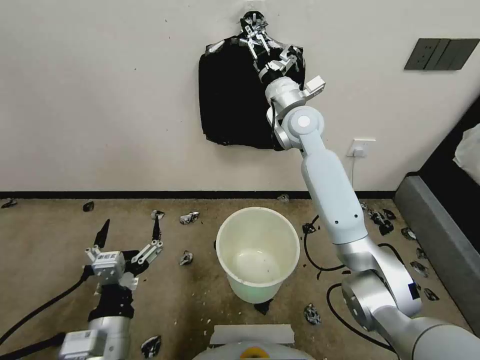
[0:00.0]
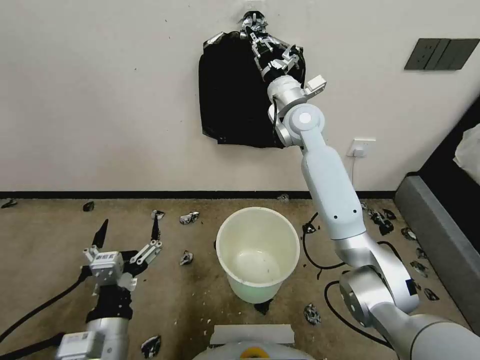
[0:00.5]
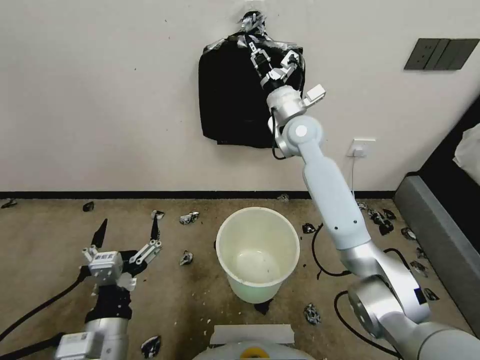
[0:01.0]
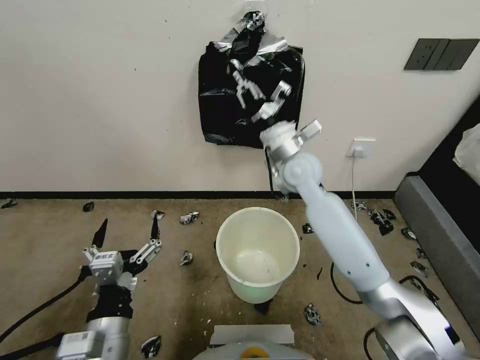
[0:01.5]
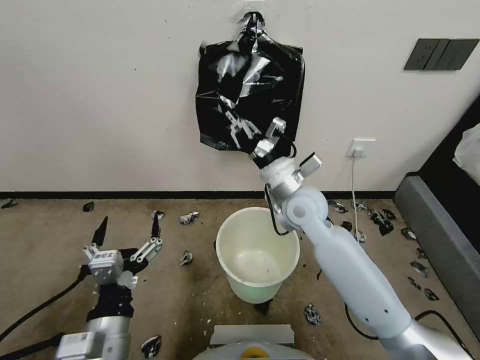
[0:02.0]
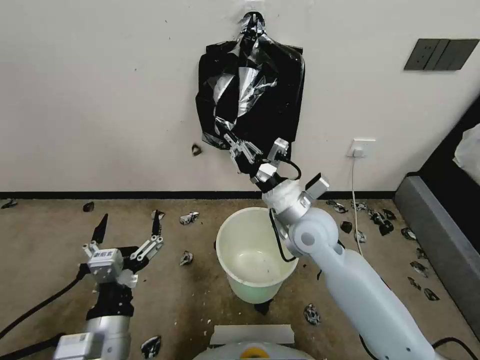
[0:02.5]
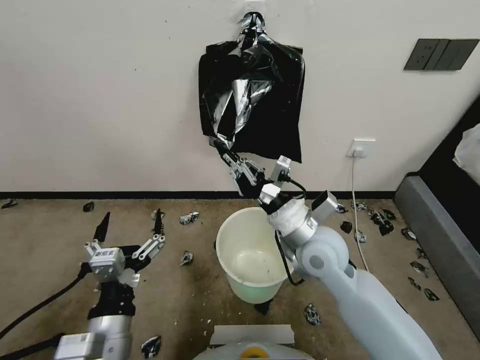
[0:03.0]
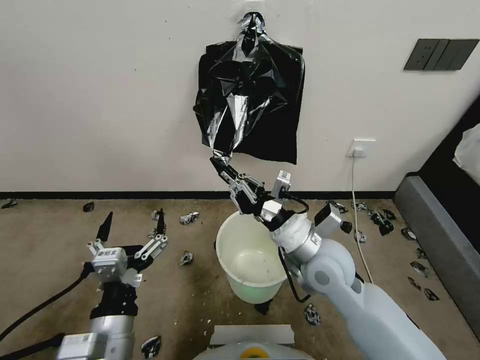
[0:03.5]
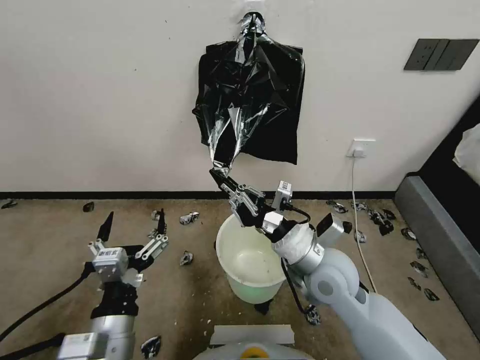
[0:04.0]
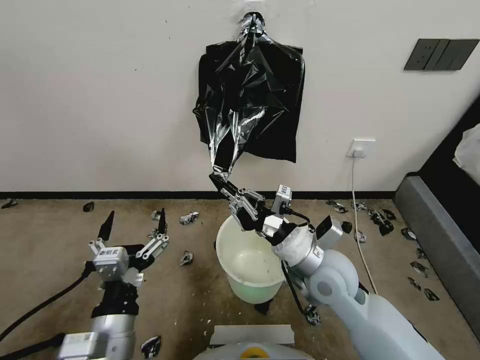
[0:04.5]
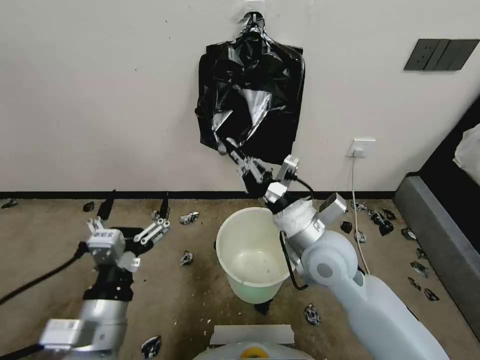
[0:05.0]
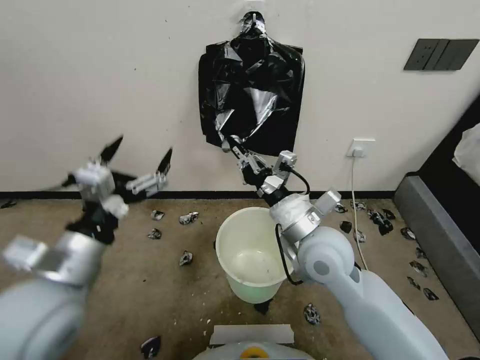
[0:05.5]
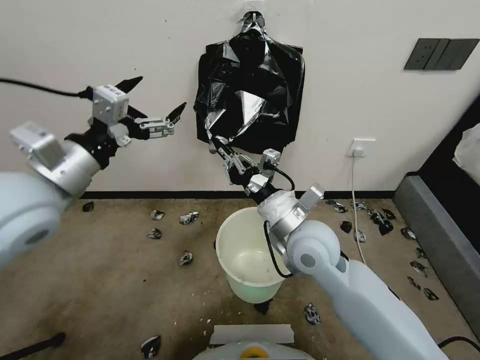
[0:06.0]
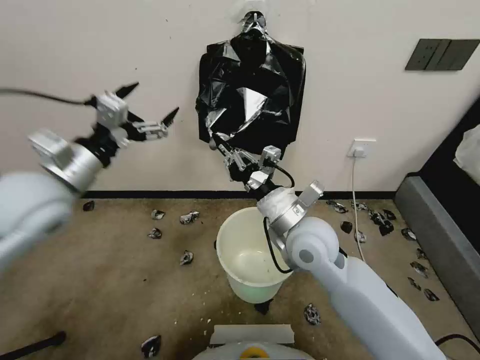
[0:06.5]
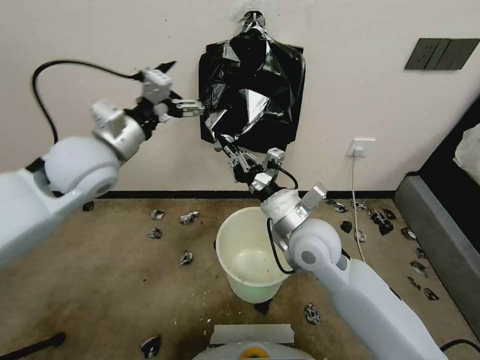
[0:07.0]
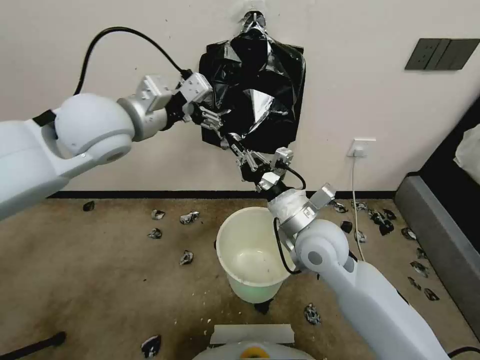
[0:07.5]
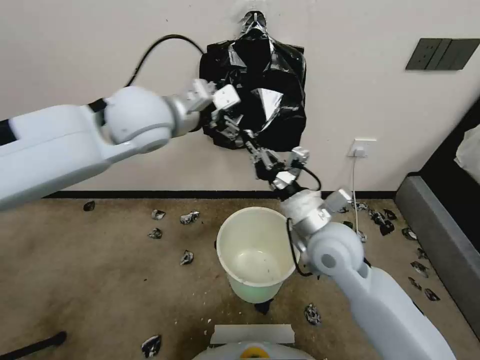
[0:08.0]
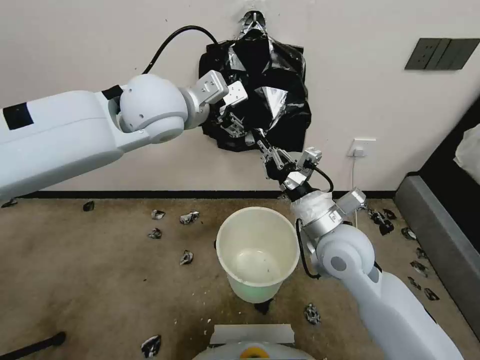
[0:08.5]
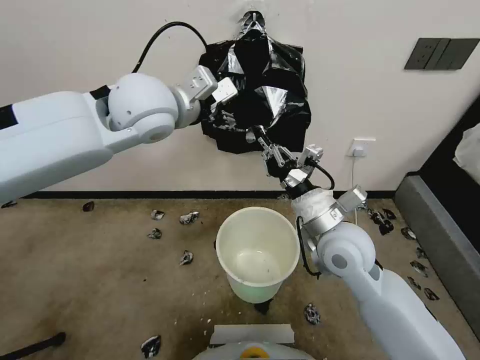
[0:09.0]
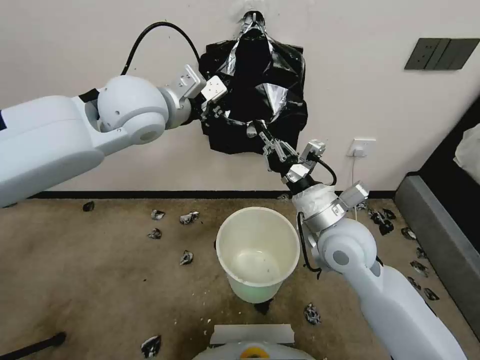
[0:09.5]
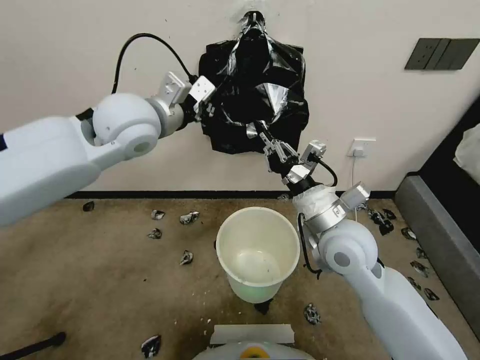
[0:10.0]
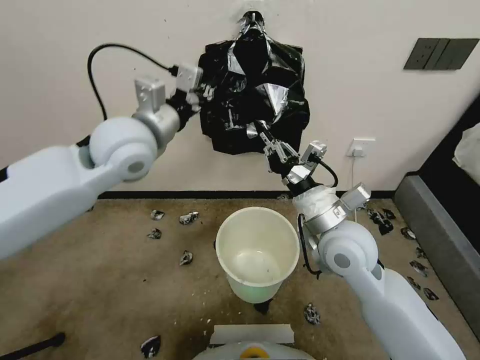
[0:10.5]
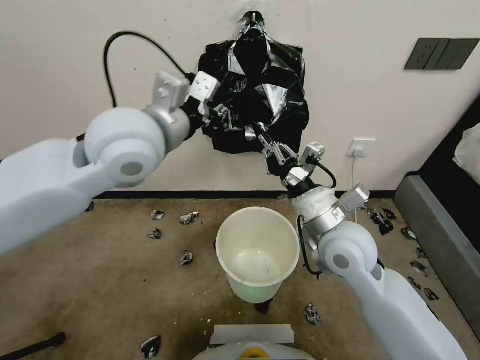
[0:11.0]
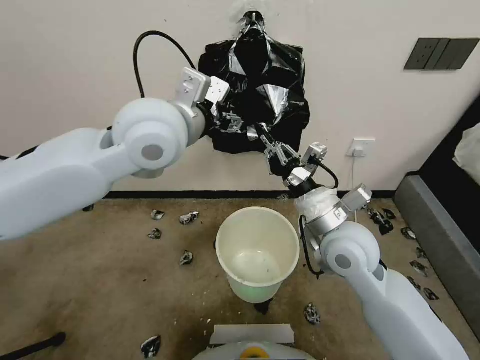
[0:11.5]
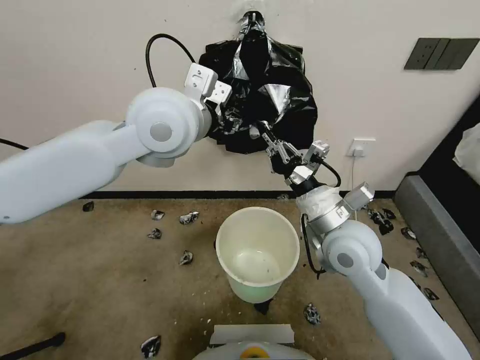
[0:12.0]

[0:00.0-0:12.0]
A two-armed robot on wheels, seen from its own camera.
Task of the whole recording: Place a trash bag onto the trash bin.
0:00.0 to 0:02.0: The right gripper travels backward and downward by approximately 20 cm, and closes up.
0:02.0 to 0:04.0: The right gripper goes about 10 cm backward.
0:04.0 to 0:06.0: The left gripper goes about 30 cm upward, forward and to the left. The right gripper ends up about 5 cm from where it was.
0:06.0 to 0:08.0: The left gripper heads forward and to the right, covering about 20 cm.
0:08.0 to 0:10.0: The left gripper closes up.
0:10.0 to 0:12.0: The left gripper is displaced to the right by about 10 cm, and opens its fingers.

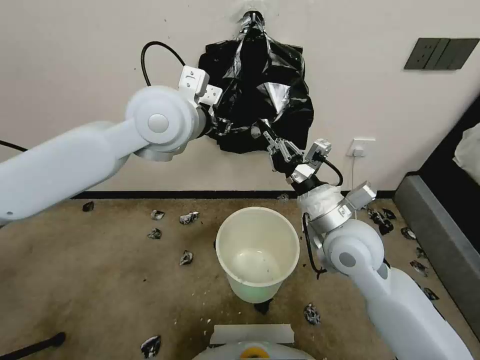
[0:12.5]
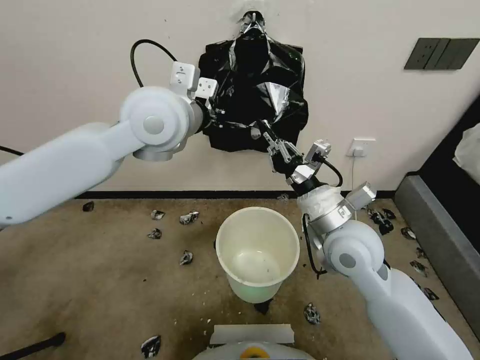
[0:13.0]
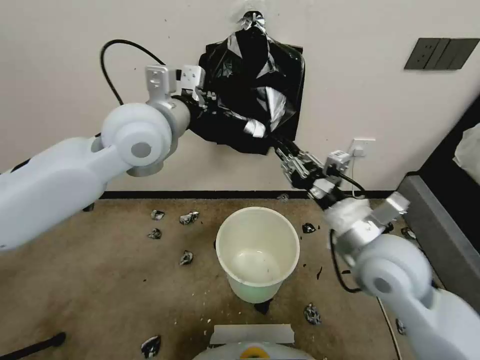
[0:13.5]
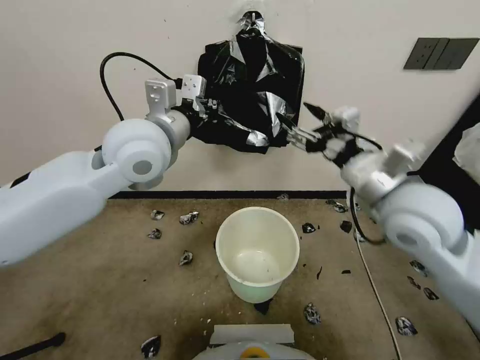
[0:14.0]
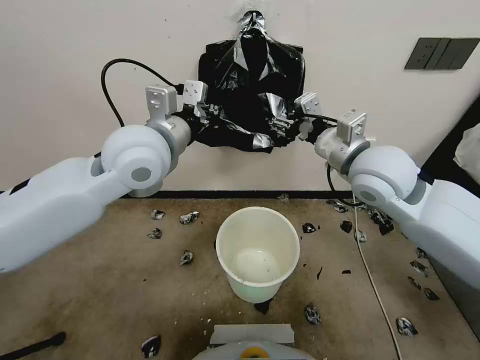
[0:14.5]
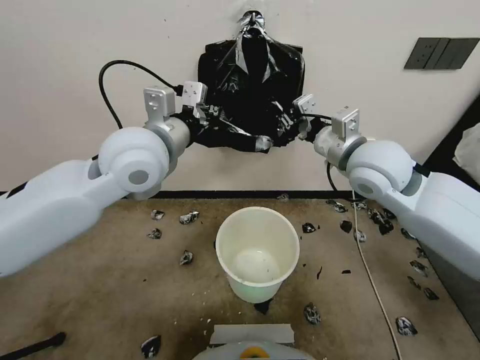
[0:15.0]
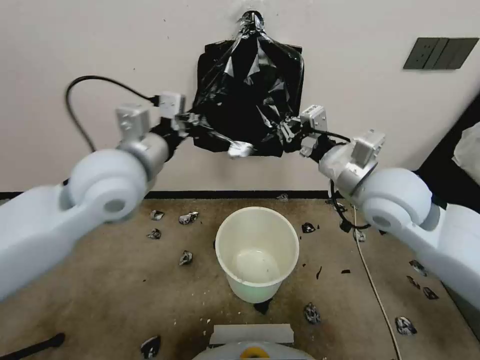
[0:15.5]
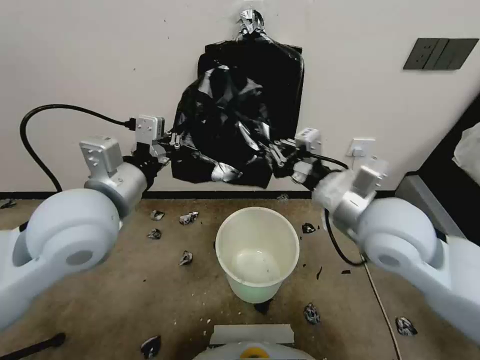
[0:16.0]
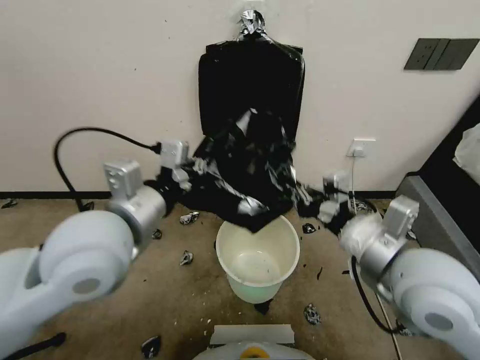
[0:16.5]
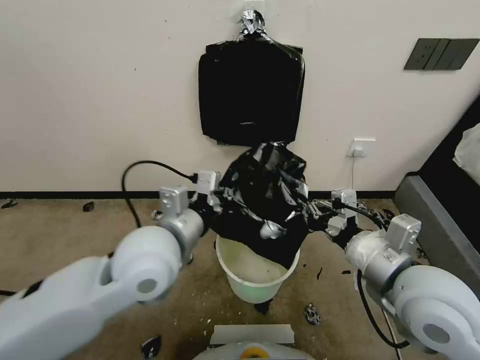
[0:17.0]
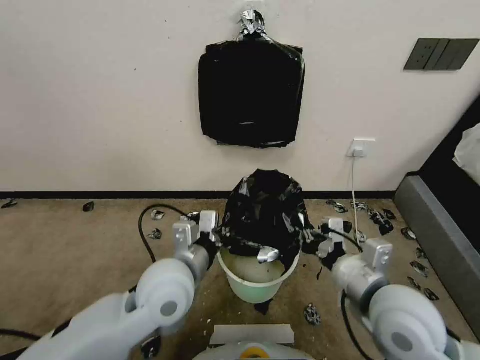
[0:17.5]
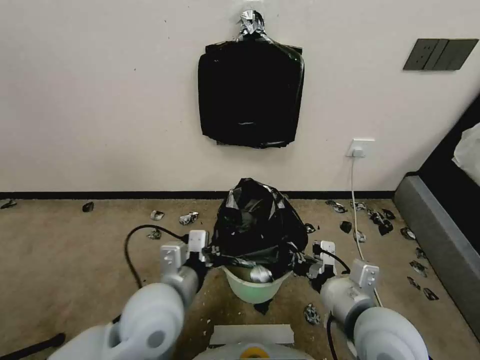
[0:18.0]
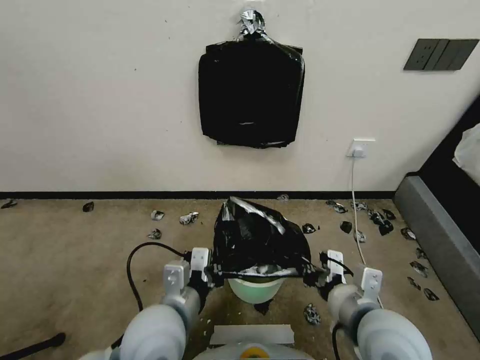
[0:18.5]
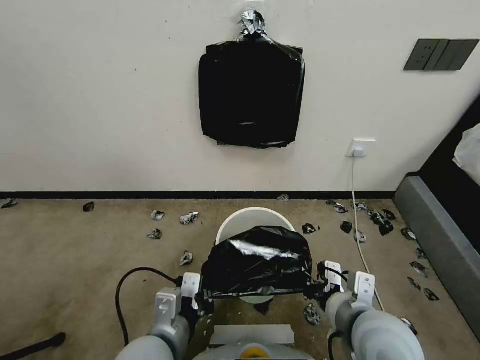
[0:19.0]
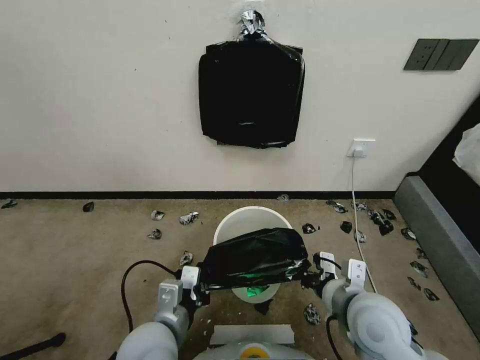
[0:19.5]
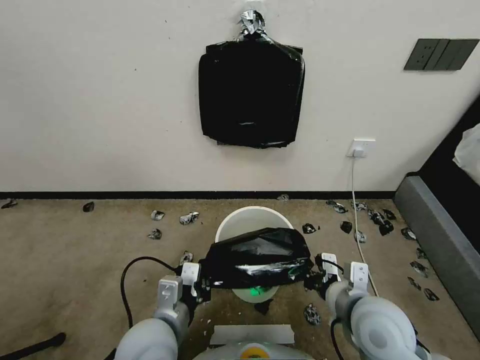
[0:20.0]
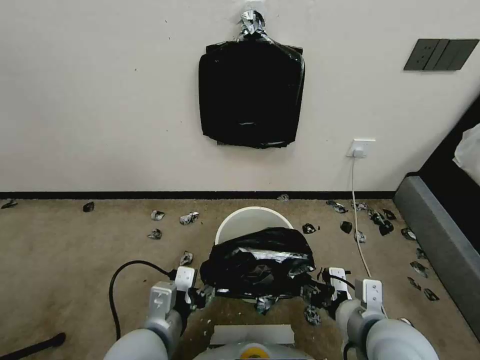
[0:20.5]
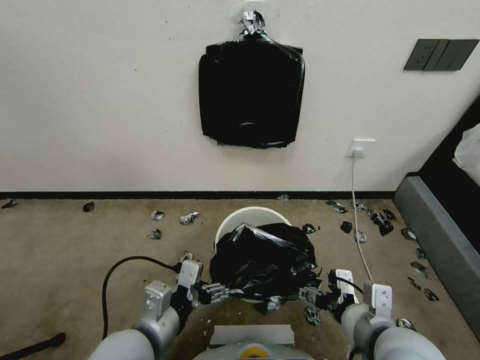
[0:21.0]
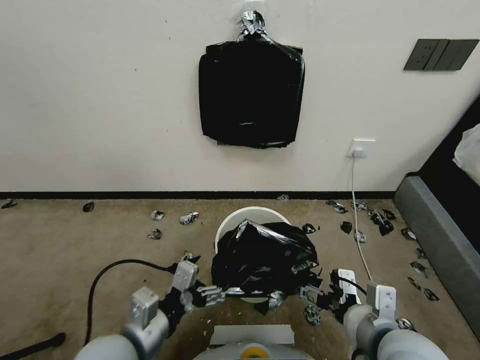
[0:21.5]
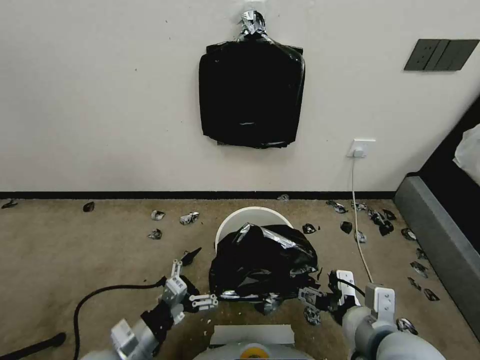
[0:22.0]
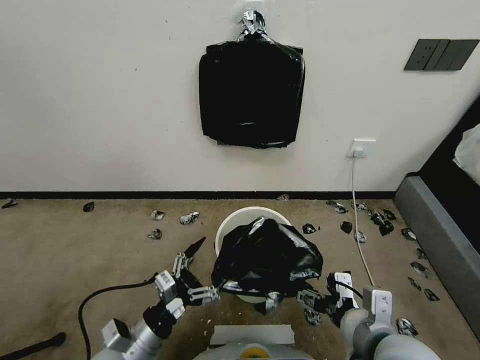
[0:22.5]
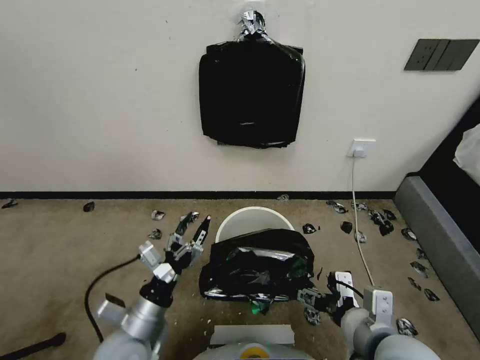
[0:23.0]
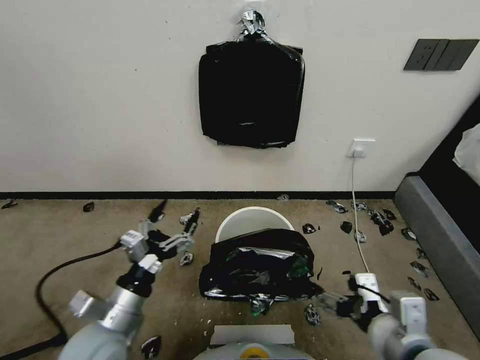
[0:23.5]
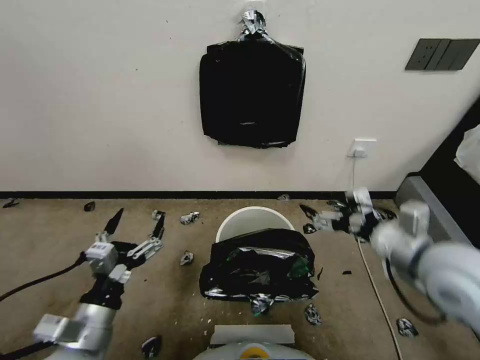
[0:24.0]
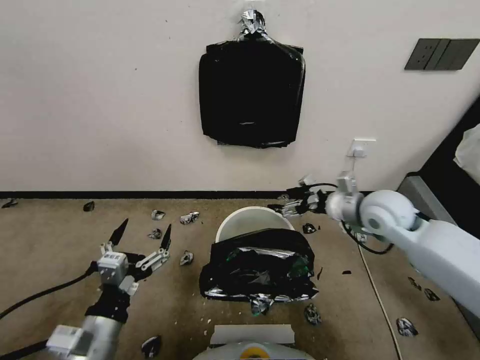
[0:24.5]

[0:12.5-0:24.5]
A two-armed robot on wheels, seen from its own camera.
Task of the whole recording: Place a trash bag onto the trash bin.
0:12.5 to 0:14.5: The right gripper is displaced upward and forward by some 15 cm, and opens up. Meanwhile the left gripper moves some 5 cm, and closes.
0:14.5 to 0:16.5: Both grippers move backward, some 15 cm. The right gripper closes up.
0:16.5 to 0:18.5: Both grippers travel together downward, about 15 cm.
0:18.5 to 0:20.5: The left gripper opens up; the right gripper opens.
0:20.5 to 0:22.5: The left gripper goes some 15 cm downward and to the left. The right gripper opens its fingers.
0:22.5 to 0:24.5: The left gripper moves upward, some 10 cm. The right gripper shifts approximately 25 cm forward.

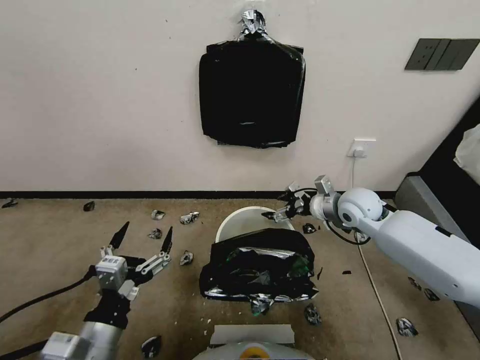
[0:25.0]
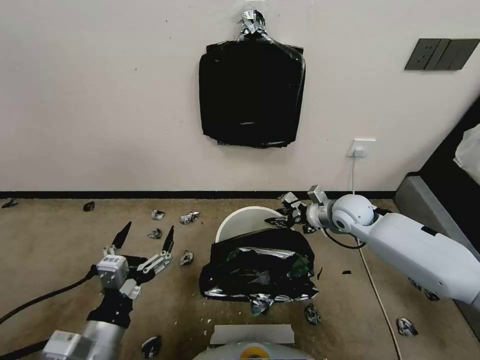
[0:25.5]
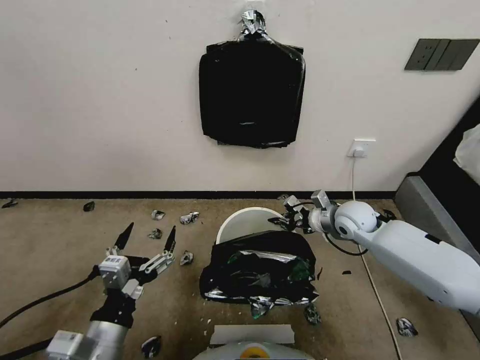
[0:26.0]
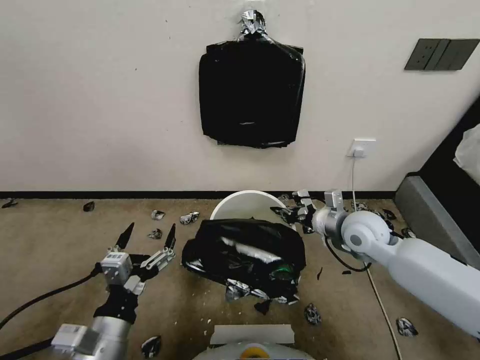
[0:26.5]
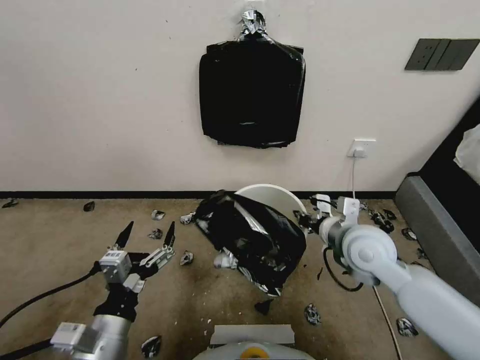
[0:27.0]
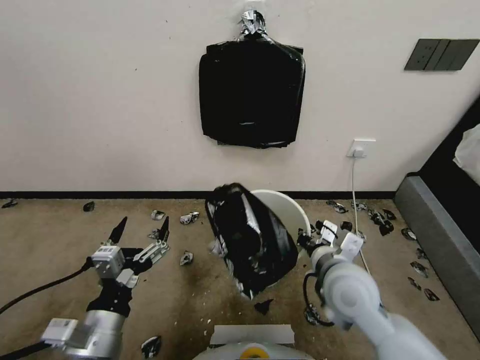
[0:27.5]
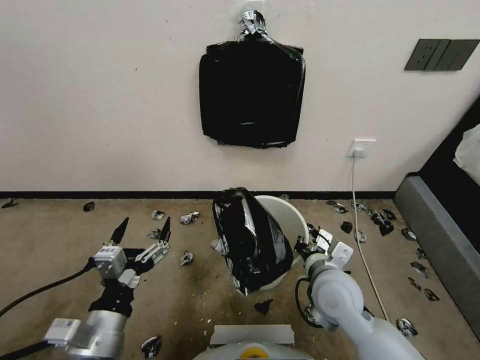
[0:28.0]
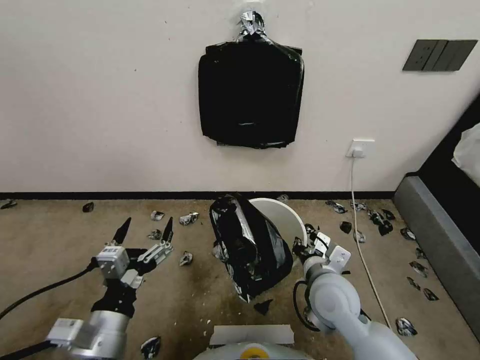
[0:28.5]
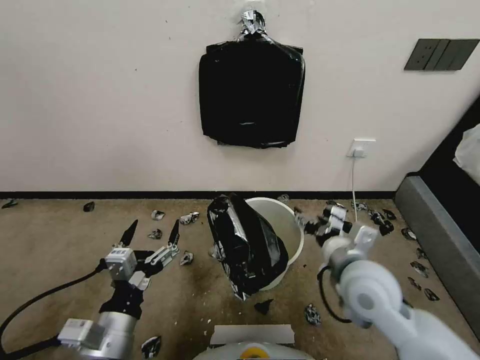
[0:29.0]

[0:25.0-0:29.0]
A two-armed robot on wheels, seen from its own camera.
Task of the whole recording: Place a trash bag onto the trash bin.
0:25.0 to 0:27.0: The right gripper is displaced backward by approximately 15 cm, and closes.
0:27.0 to 0:29.0: The right gripper is displaced backward by roughly 5 cm, moves approximately 10 cm downward and comes back, and opens.
